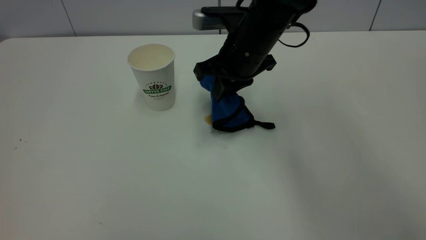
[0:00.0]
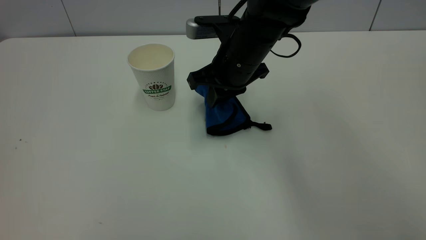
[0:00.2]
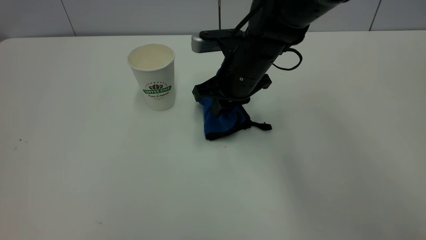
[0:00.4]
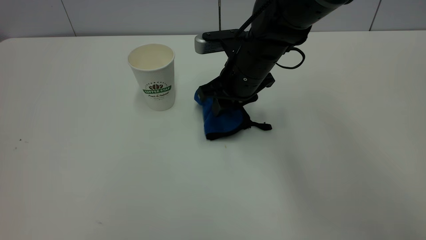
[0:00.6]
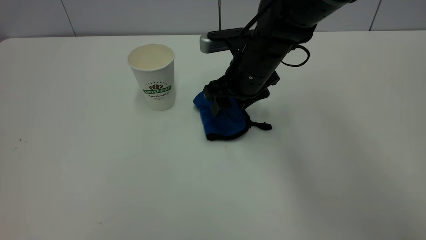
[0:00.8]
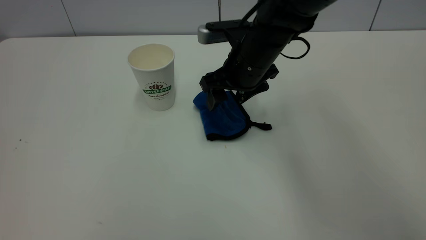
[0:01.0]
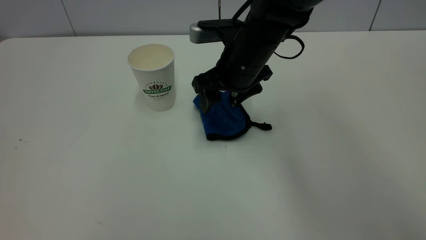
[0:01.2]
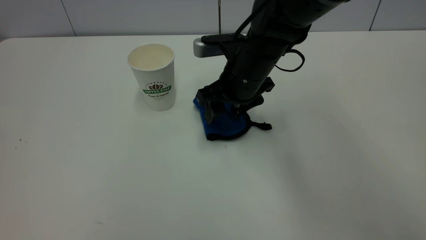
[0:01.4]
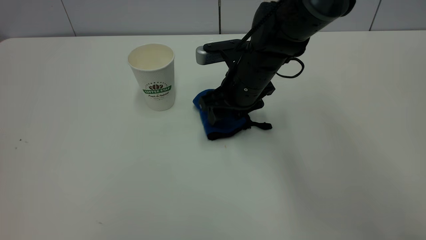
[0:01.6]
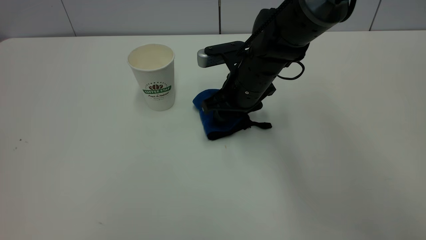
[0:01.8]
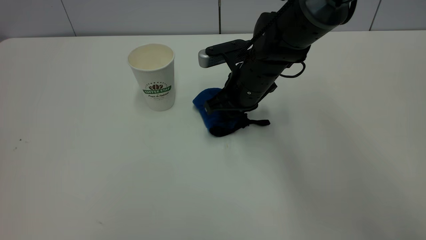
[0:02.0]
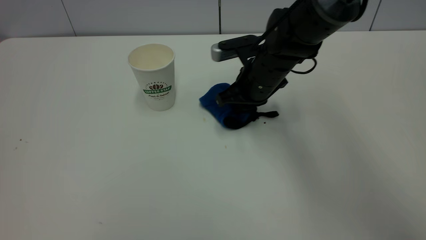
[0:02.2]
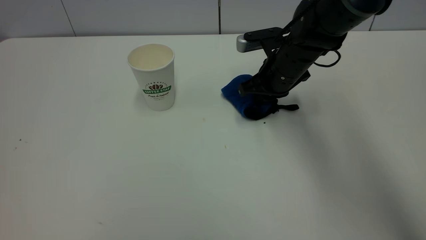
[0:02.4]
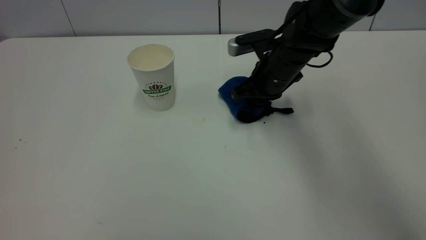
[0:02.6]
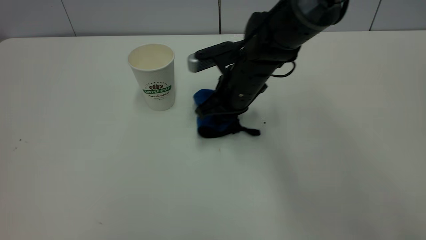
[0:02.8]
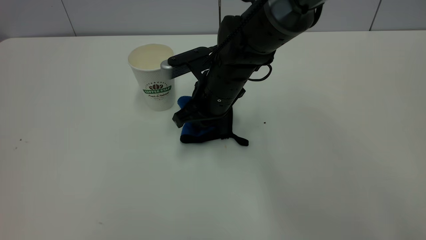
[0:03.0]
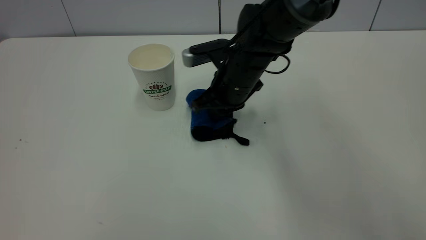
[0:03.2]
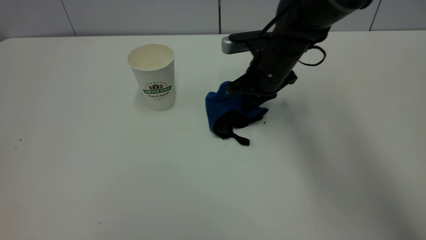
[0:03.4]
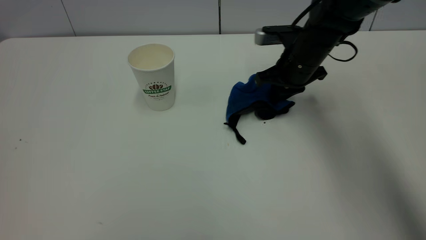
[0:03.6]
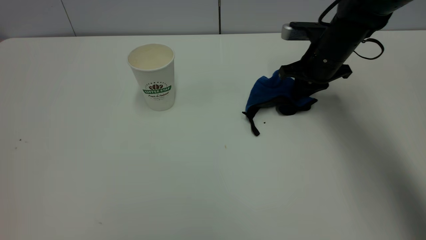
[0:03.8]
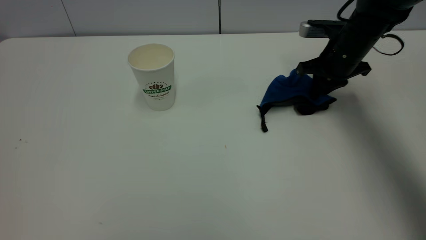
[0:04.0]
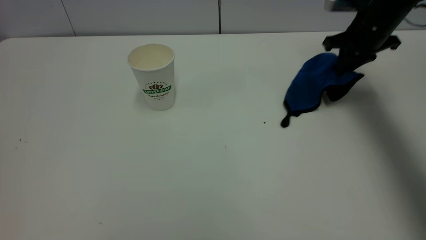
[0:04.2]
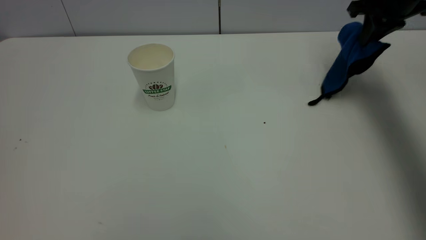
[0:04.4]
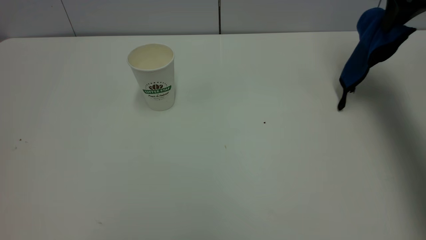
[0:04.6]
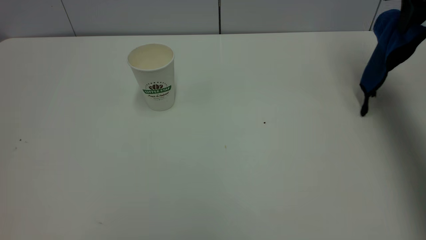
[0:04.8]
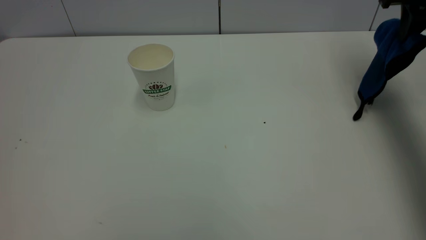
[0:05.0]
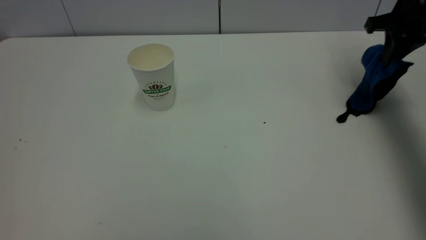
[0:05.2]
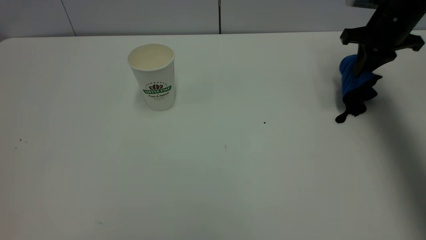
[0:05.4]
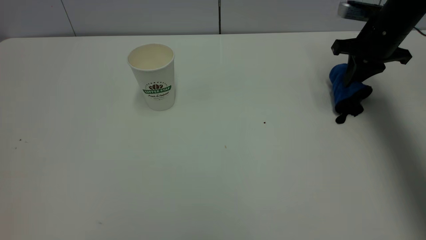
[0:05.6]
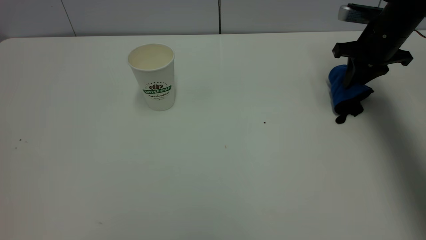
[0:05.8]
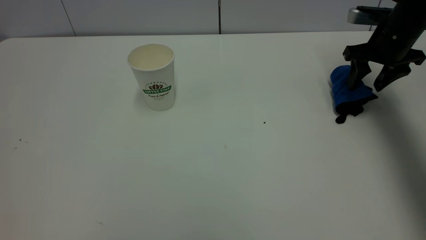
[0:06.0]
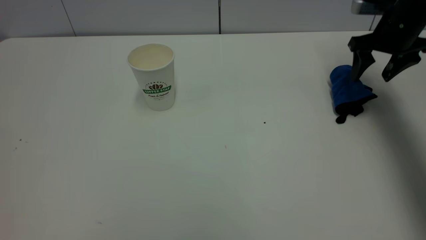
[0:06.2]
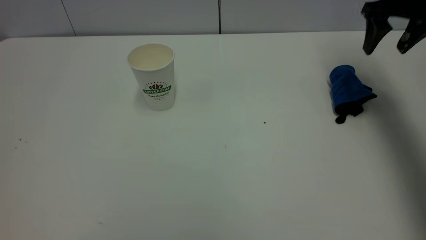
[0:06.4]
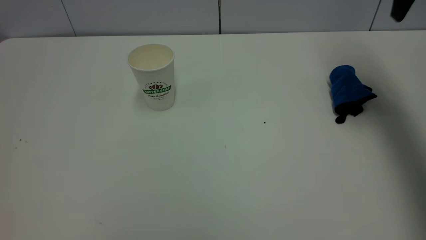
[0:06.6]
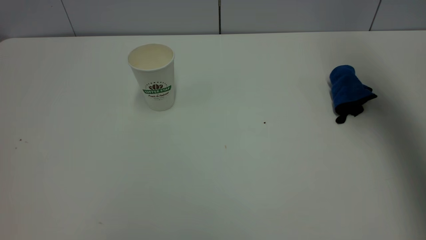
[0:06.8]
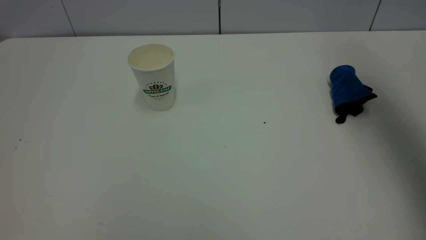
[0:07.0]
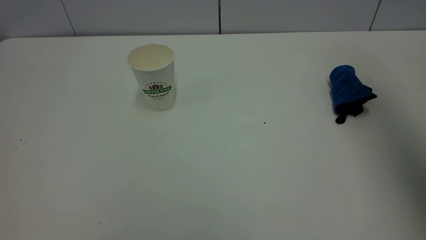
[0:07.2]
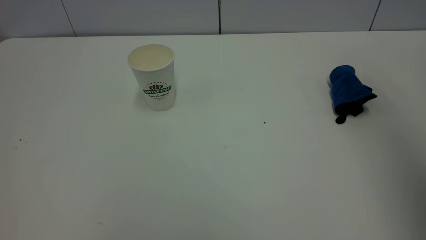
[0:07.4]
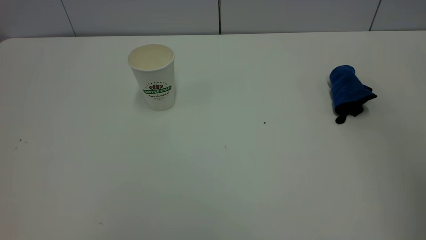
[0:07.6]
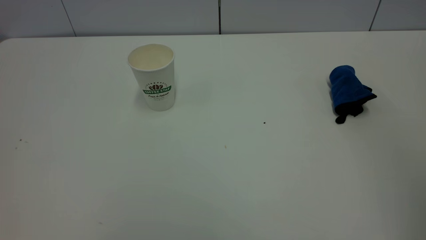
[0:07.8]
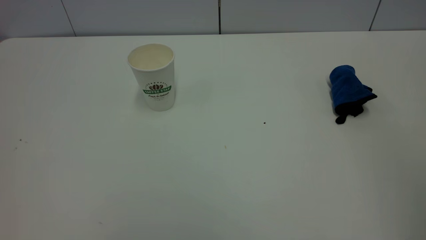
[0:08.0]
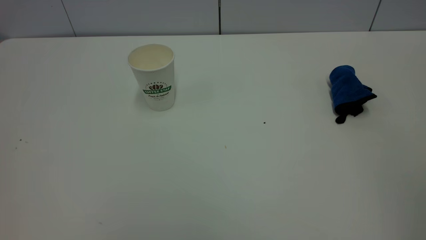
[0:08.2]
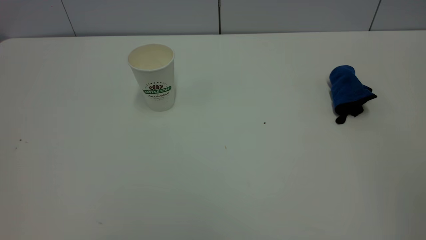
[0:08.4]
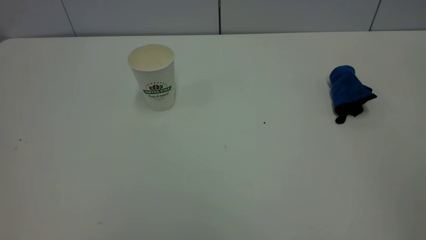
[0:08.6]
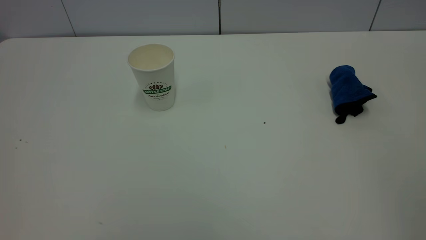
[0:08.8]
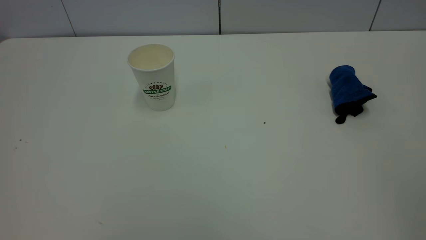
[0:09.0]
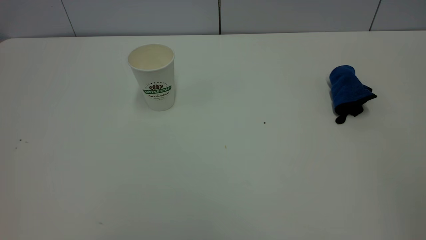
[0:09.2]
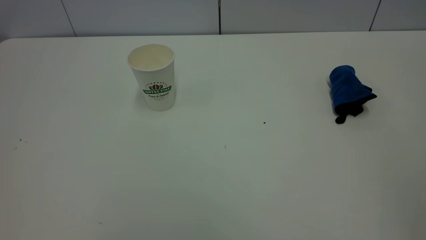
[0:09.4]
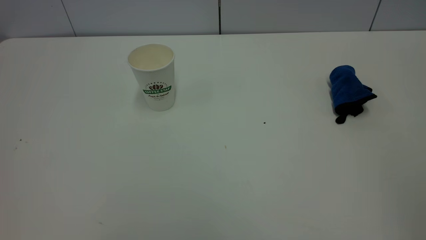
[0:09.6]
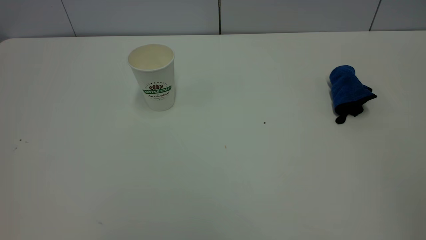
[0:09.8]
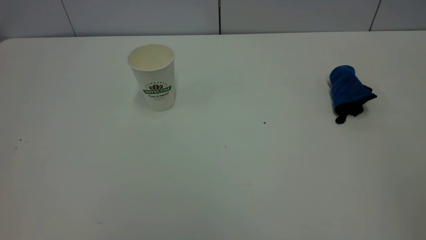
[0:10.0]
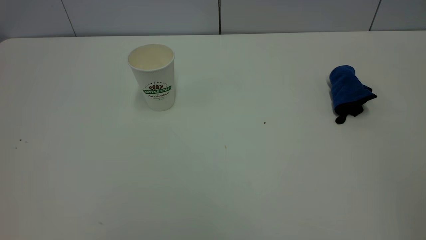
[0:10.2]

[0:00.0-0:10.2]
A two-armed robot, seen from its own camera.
Task of the whole recording: the left gripper pick up the fallen cup and place it upright, the right gripper grasp the blue rag and wipe the tea stain on the table, the right gripper put the blue rag back in its original position.
Step, 0:00.0 to 0:06.4: Wipe the stains off the table with a rag.
0:00.0 to 0:01.4: The right gripper opens.
0:01.4 to 0:03.0: The right gripper closes its fingers.
0:03.0 to 0:04.4: The right gripper shifts some 35 cm to the right and upward.
0:04.4 to 0:05.8: The right gripper goes about 10 cm downward, and opens its fingers.
0:05.8 to 0:07.2: The right gripper travels upward and backward by roughly 40 cm, and opens its fingers.
0:07.2 to 0:08.8: The right gripper is displaced backward by roughly 25 cm.

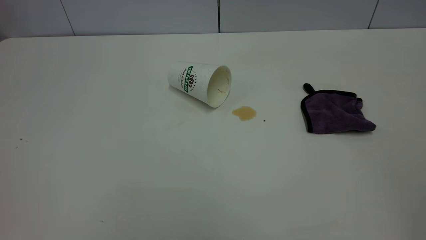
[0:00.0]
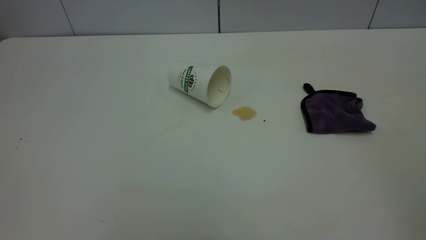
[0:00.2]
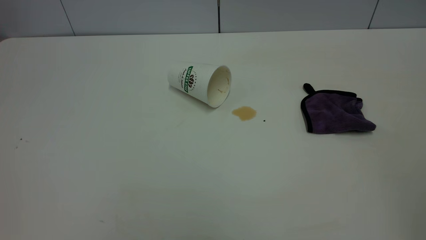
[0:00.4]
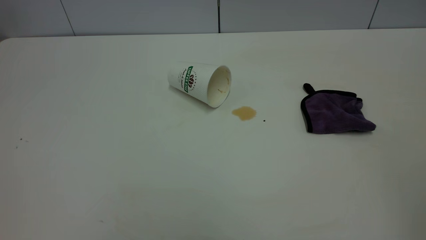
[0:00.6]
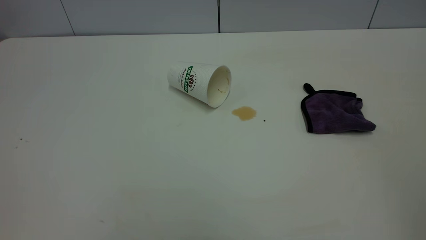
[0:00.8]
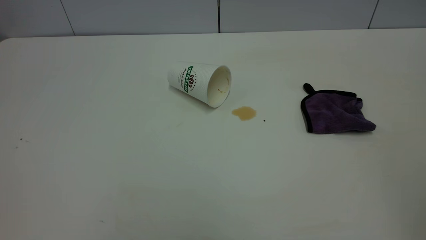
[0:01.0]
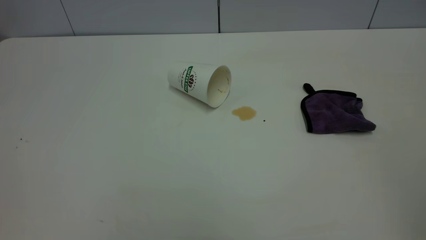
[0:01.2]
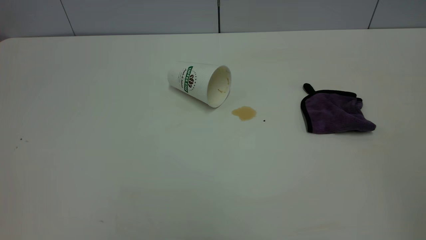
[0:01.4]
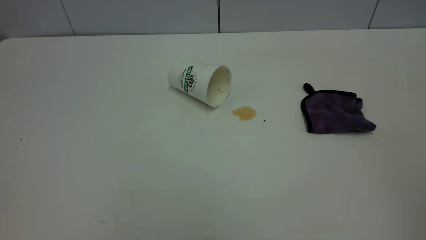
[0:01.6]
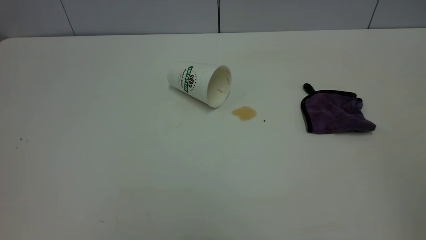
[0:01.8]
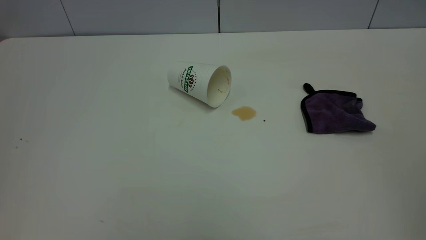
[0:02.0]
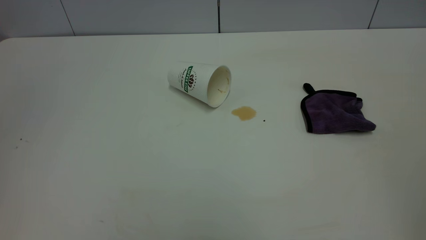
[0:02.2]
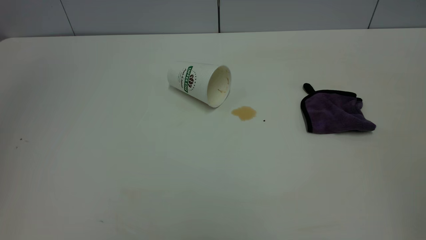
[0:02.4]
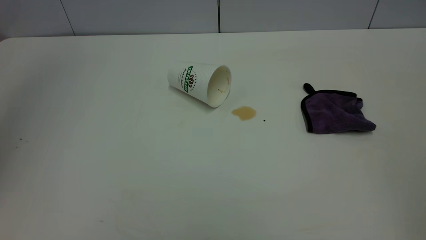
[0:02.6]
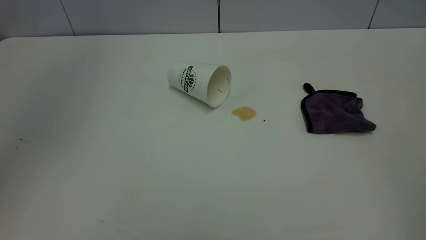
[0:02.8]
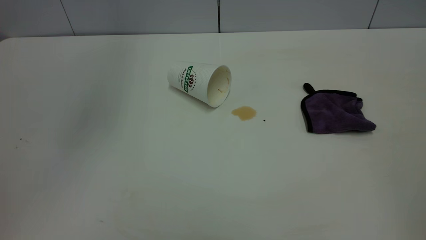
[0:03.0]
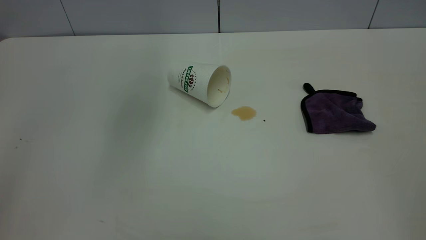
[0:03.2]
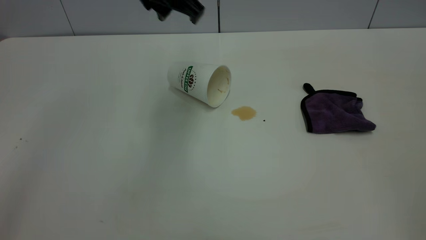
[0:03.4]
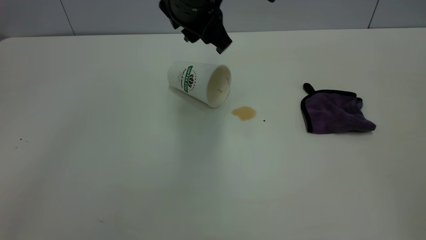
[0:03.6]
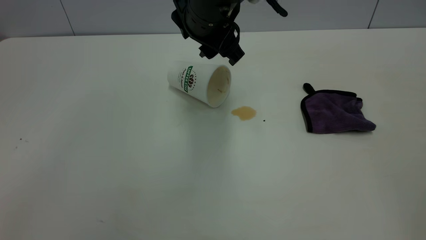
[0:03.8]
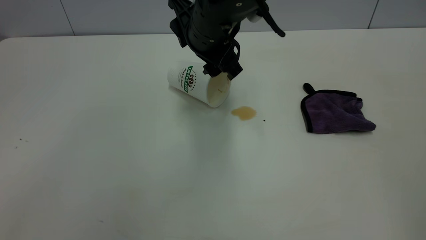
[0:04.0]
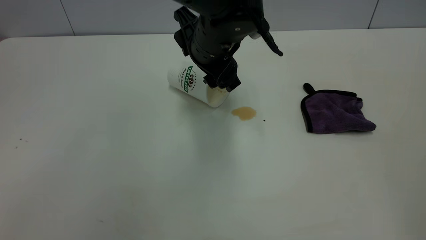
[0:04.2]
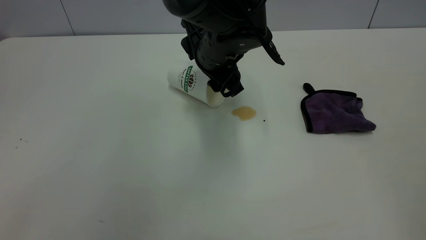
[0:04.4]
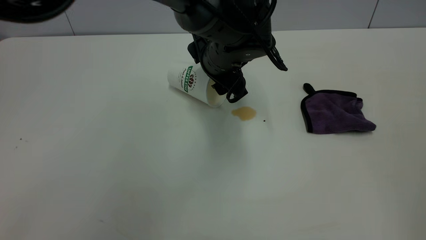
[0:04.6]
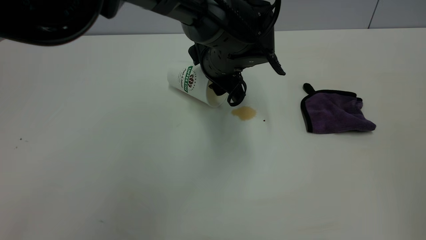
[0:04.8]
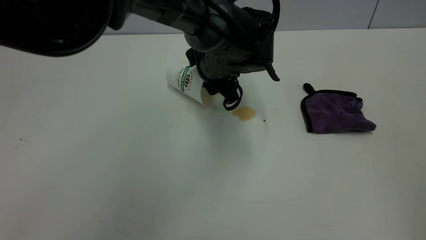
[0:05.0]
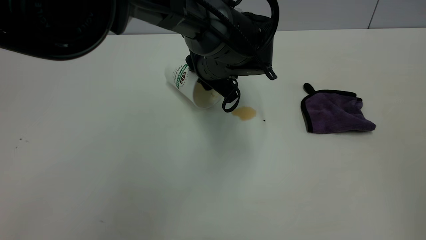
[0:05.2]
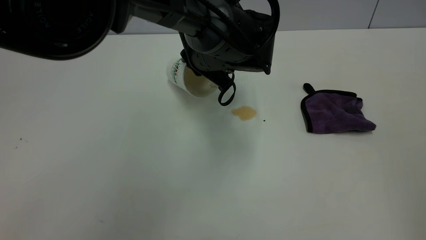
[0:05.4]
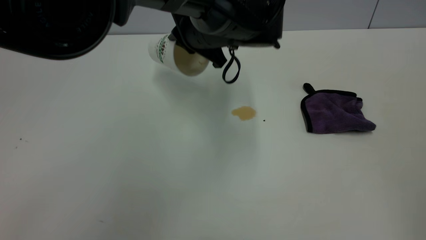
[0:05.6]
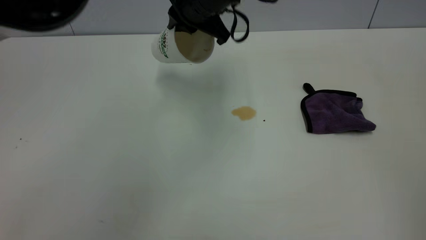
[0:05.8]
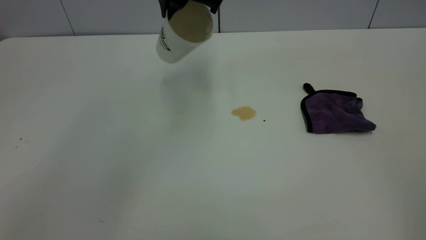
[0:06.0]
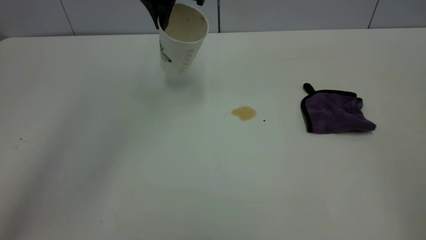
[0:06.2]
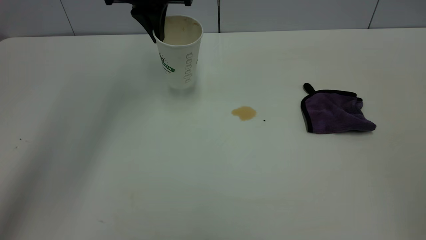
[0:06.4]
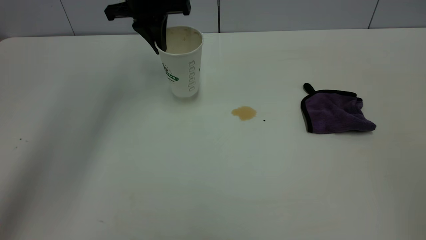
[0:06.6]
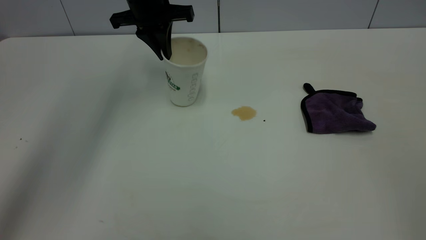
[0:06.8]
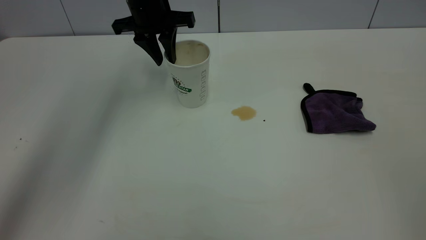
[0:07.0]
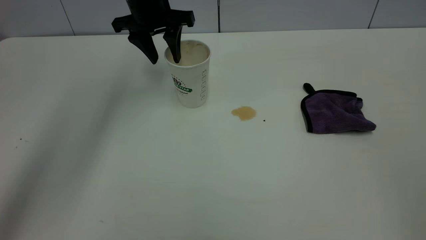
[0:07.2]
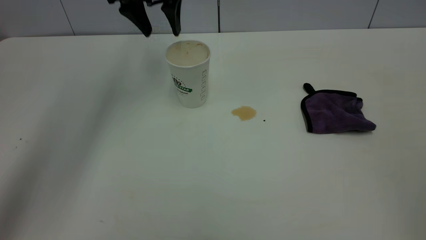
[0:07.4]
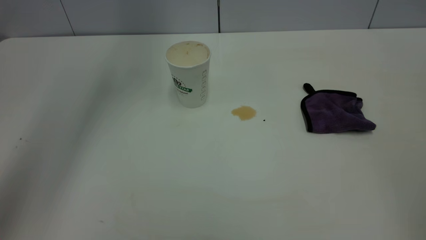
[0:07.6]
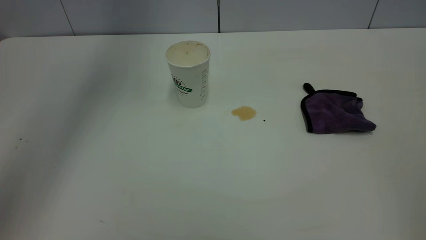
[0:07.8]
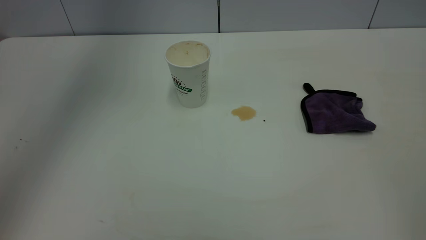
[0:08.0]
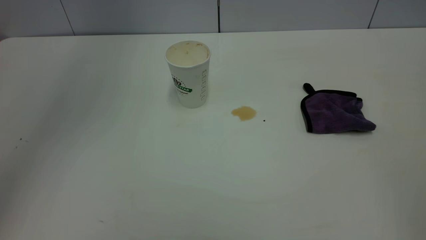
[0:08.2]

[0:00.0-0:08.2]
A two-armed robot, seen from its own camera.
Task of the whole recording: the left gripper pick up the fallen cup and place it upright, the right gripper grasp the purple rag and wipe the tea stain on the table, the right gripper put the purple rag back in its original position.
Step, 0:00.0 to 0:07.2: Stand the paper cup upright.
0:00.0 to 0:01.6: The two grippers keep their place.
0:01.6 to 0:03.2: The left gripper is displaced forward and to the right by about 40 cm.
0:03.2 to 0:05.0: The left gripper heads downward and to the right, covering some 25 cm.
0:05.0 to 0:06.6: The left gripper heads to the left, upward and forward, covering about 20 cm, and closes up.
0:06.6 to 0:08.2: The left gripper heads upward and backward, covering about 30 cm, and opens up.
